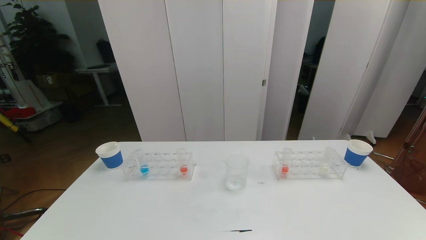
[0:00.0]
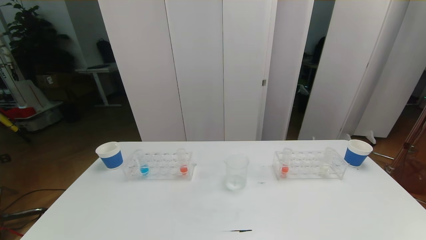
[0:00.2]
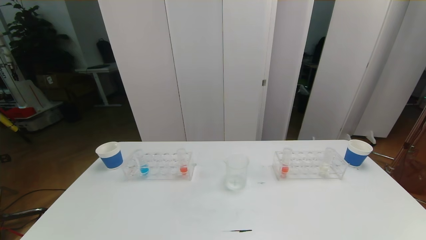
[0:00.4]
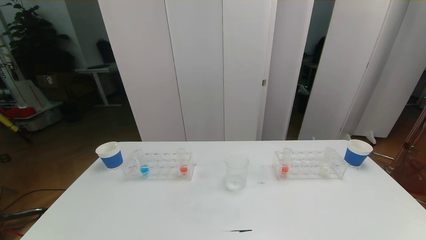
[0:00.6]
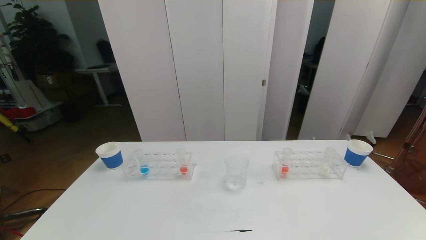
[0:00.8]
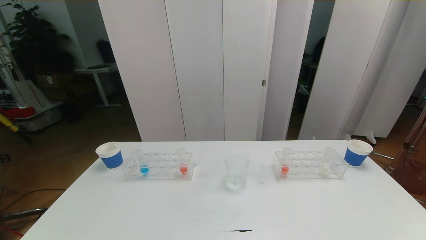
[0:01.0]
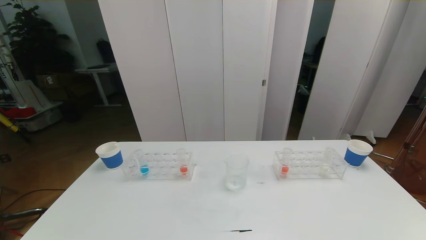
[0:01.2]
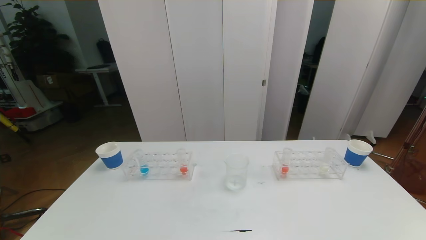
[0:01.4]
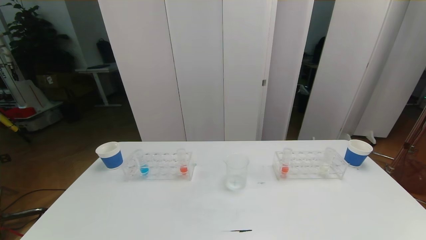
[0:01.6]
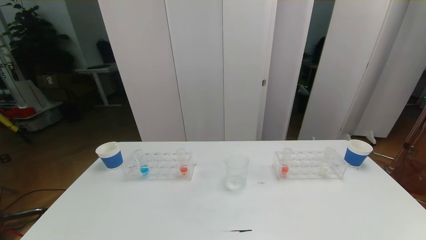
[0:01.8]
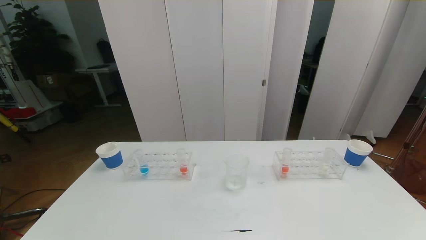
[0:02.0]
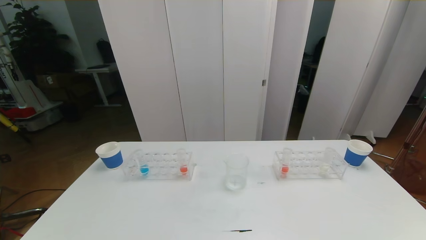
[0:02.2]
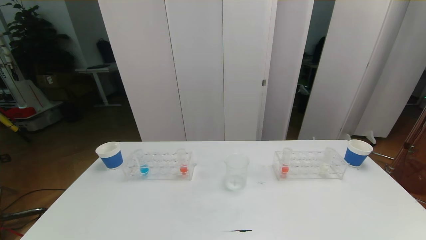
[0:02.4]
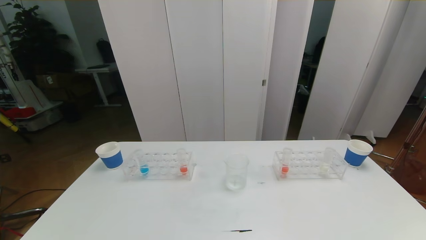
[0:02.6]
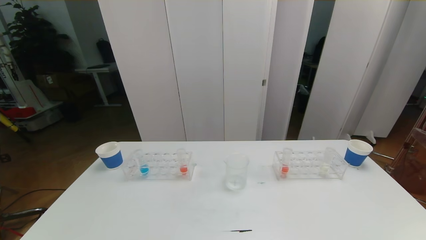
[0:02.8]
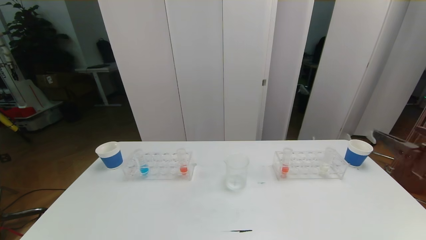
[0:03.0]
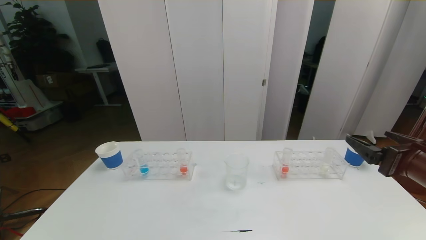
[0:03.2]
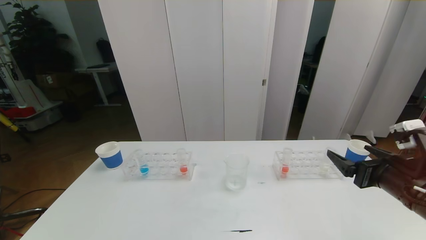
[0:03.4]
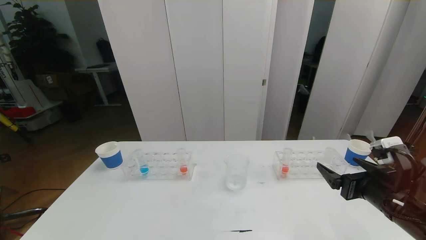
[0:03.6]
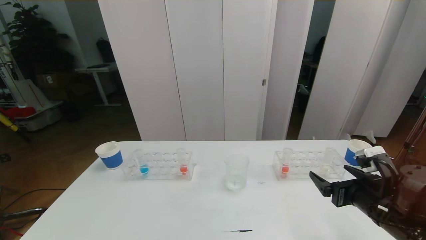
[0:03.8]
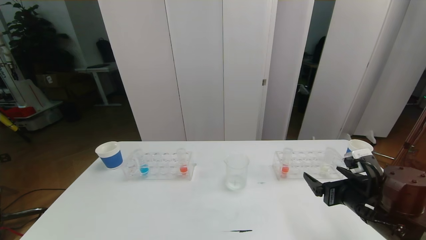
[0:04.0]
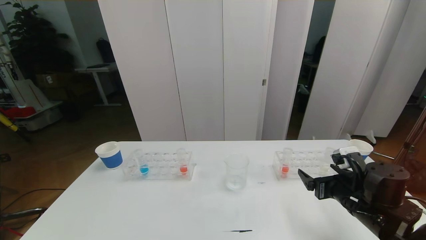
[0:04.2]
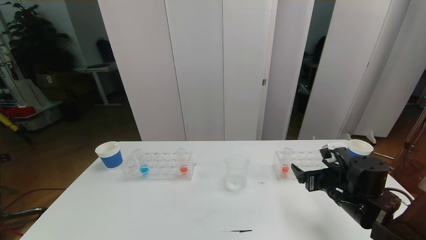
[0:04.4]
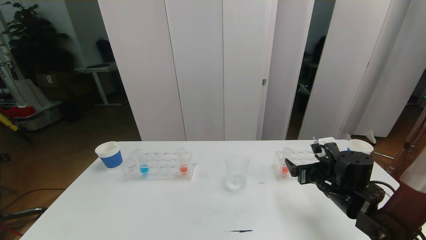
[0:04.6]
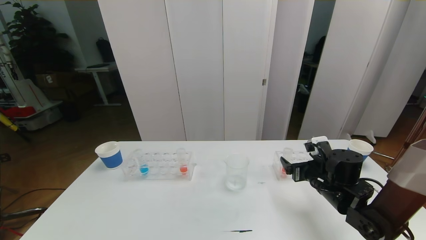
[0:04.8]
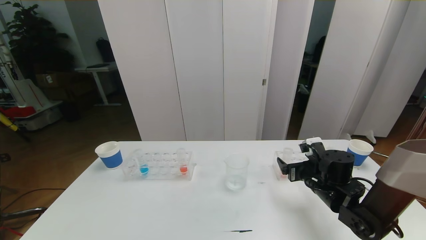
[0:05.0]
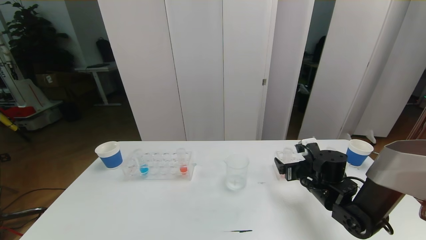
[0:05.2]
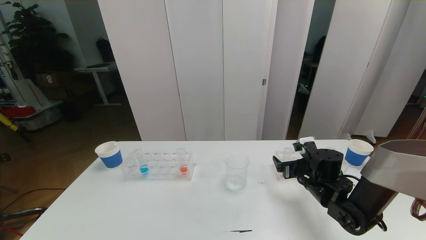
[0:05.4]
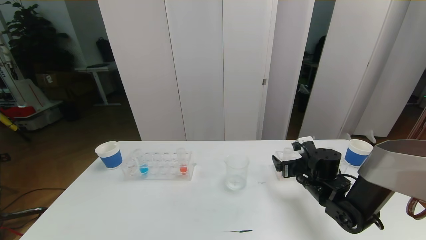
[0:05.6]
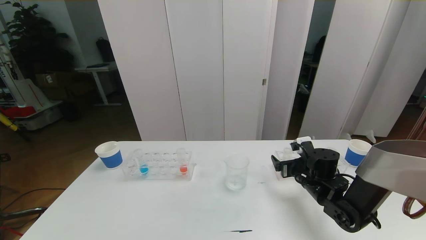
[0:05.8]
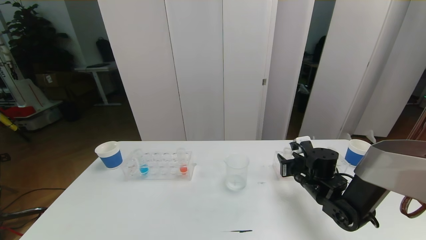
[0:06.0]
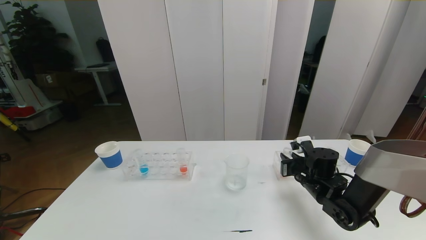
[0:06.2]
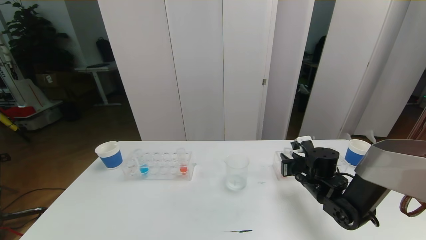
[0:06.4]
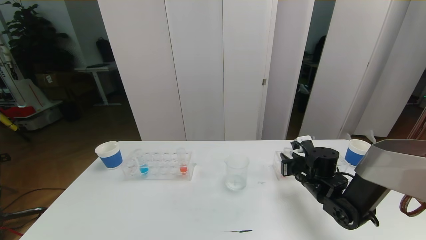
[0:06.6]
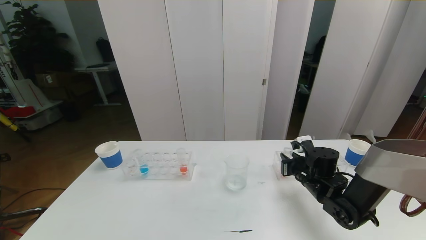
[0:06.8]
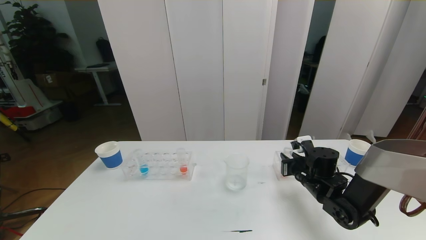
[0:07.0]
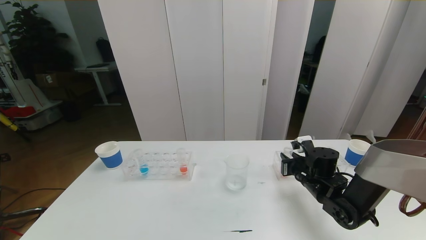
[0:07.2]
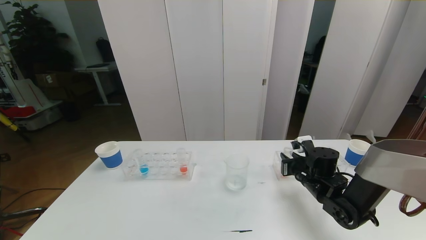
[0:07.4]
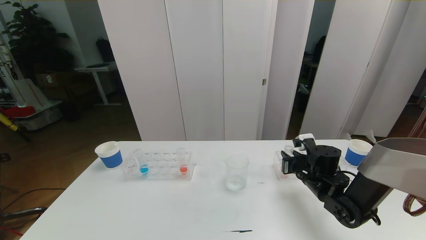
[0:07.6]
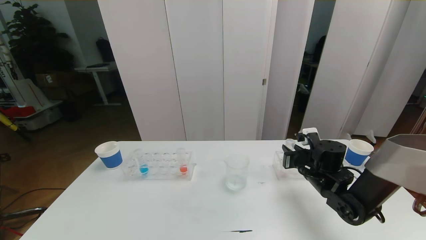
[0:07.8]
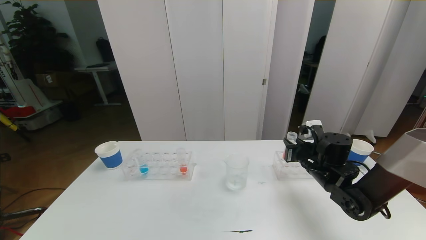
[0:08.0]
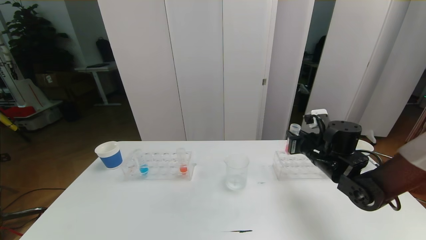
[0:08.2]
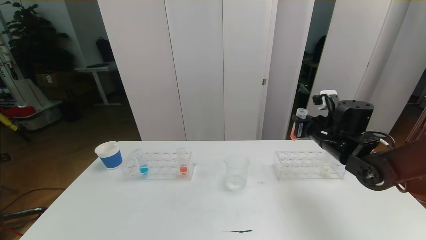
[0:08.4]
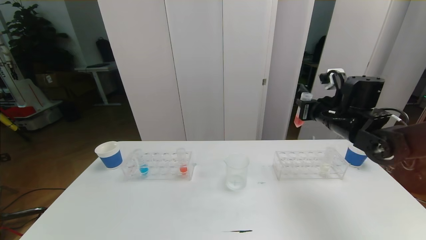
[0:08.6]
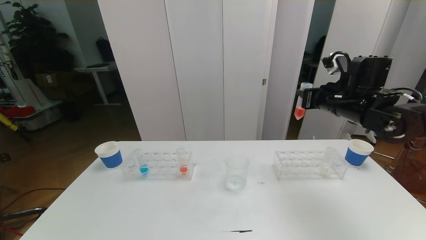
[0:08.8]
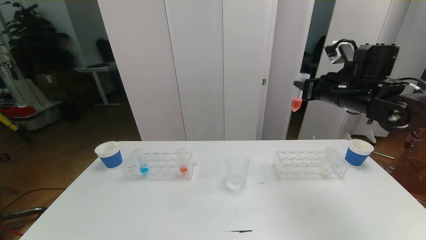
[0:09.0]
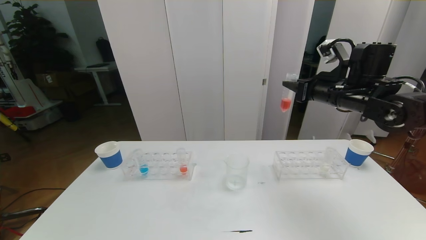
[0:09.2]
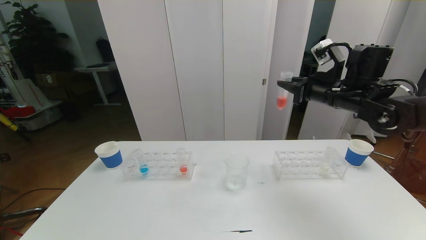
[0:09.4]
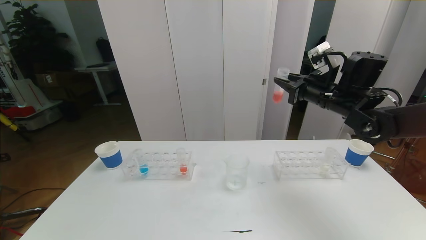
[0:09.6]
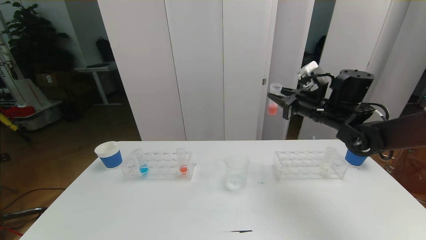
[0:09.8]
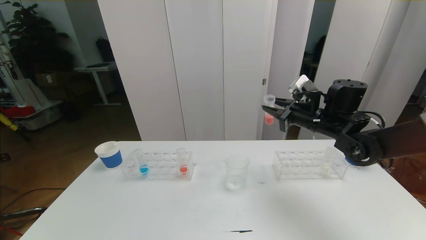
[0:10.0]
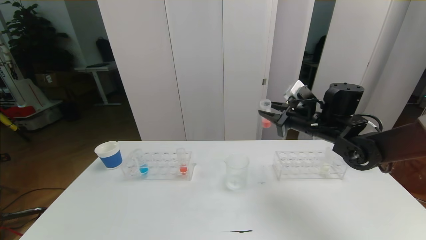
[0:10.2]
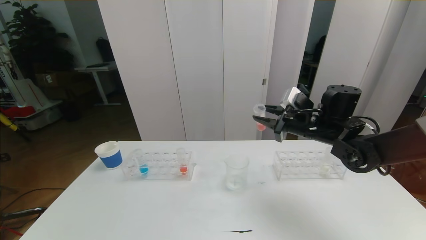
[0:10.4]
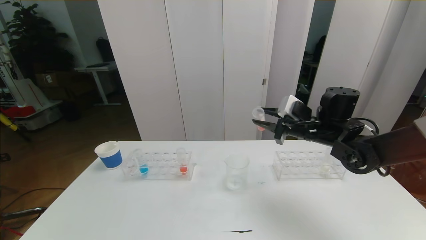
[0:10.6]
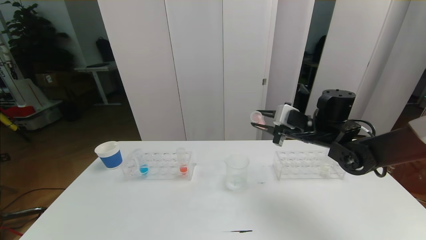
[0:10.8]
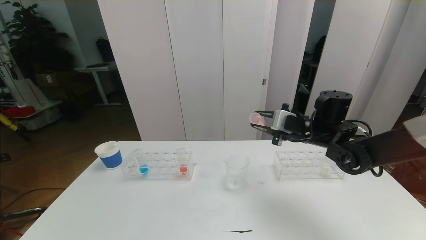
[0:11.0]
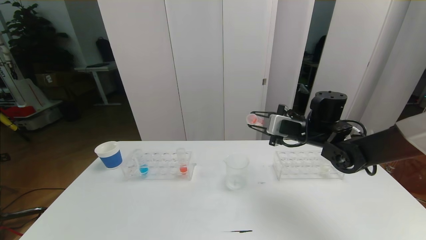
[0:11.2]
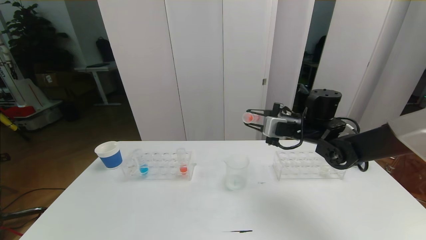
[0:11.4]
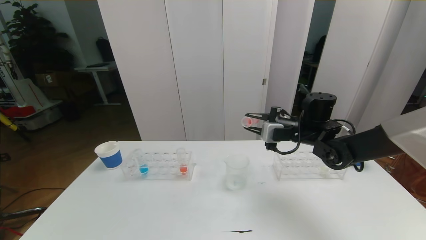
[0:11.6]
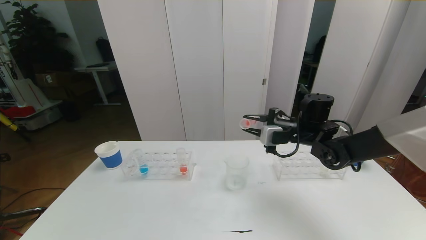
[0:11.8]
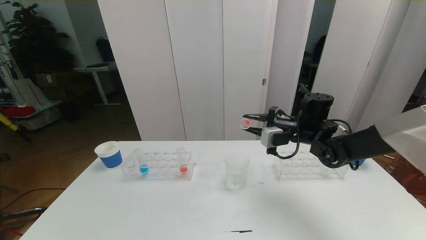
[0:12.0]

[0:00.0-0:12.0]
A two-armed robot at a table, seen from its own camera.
Task of the whole recording: pick up the test tube with red pigment the test tube with blue pigment and the test tube with white pigment by grippers and pour them into the beaker.
0:00.0 to 0:01.6: The two grippers keep their place.
0:03.0 to 0:04.4: The right gripper is displaced downward, forward and to the left by about 20 cm.
0:04.4 to 0:06.0: The right gripper goes roughly 5 cm forward, and closes up.
0:06.0 to 0:07.6: The two grippers keep their place.
0:07.6 to 0:09.0: The right gripper goes roughly 20 cm upward.
0:09.0 to 0:10.4: The right gripper travels downward and to the left by some 10 cm.
0:10.4 to 0:12.0: The right gripper changes place by some 5 cm.

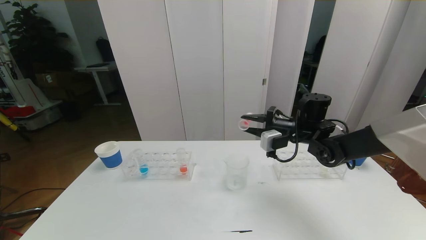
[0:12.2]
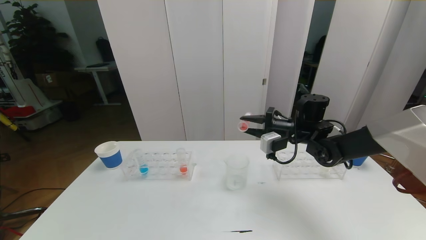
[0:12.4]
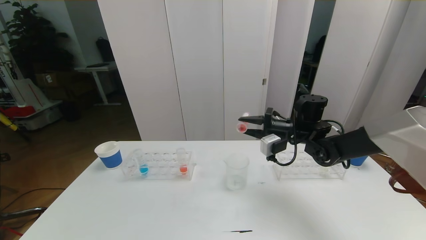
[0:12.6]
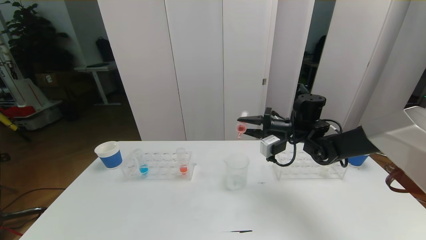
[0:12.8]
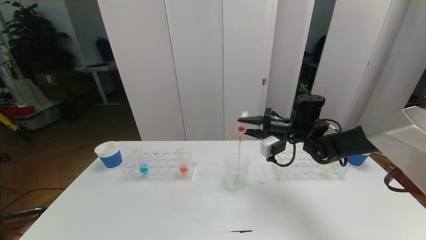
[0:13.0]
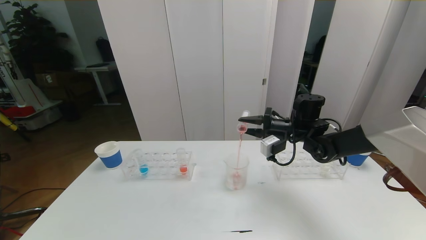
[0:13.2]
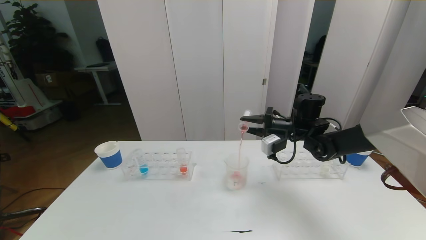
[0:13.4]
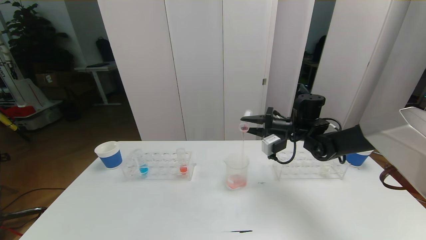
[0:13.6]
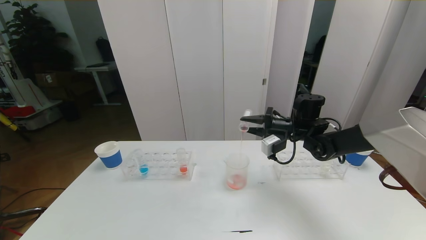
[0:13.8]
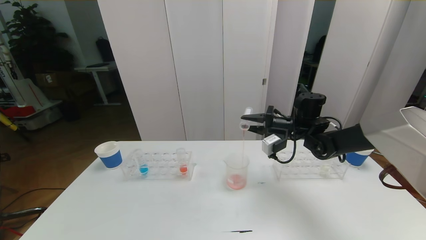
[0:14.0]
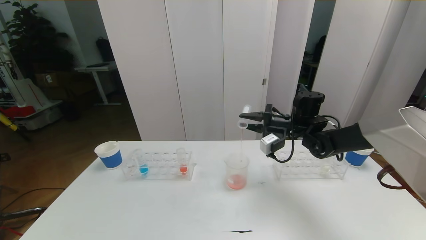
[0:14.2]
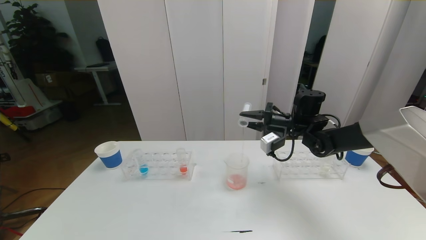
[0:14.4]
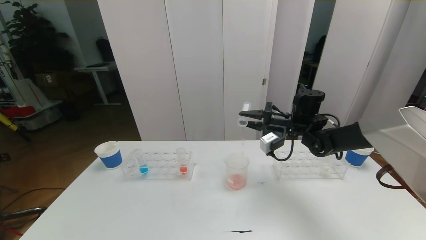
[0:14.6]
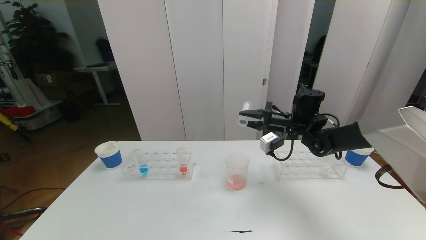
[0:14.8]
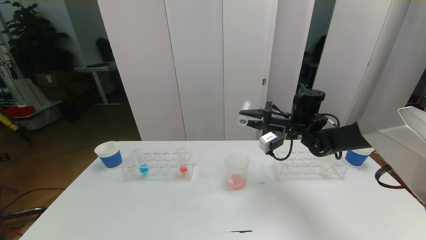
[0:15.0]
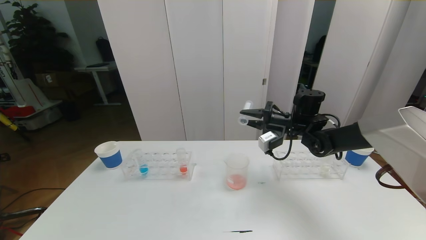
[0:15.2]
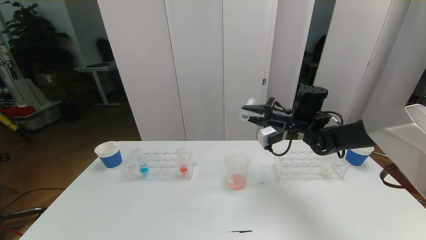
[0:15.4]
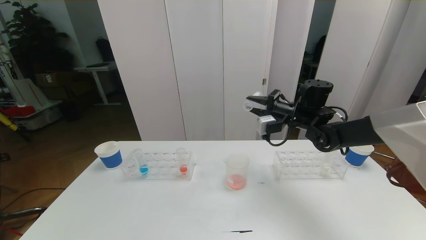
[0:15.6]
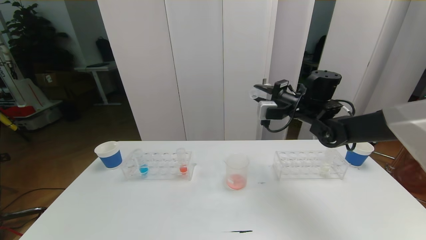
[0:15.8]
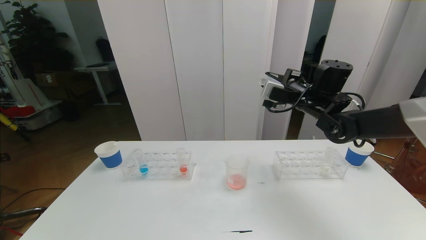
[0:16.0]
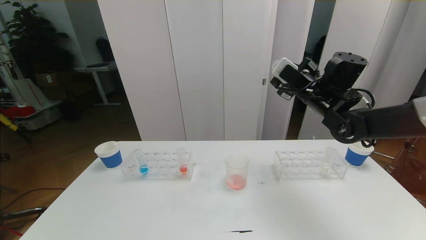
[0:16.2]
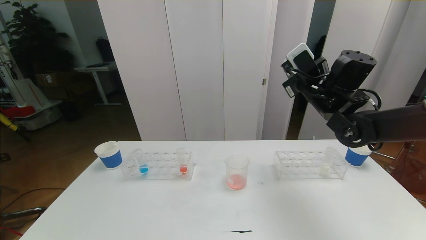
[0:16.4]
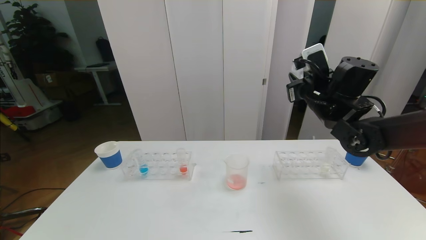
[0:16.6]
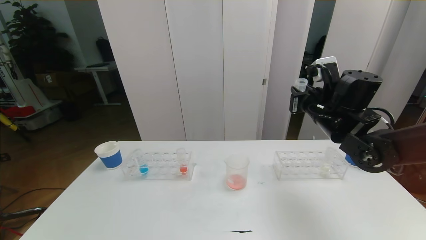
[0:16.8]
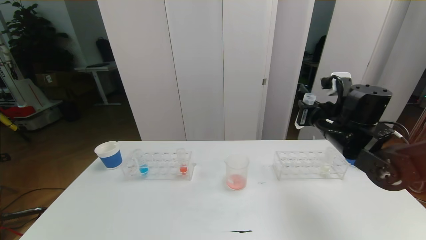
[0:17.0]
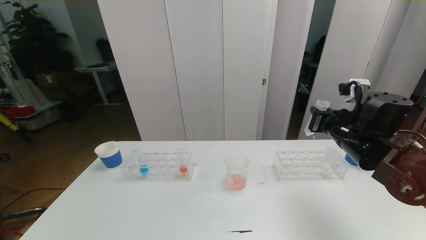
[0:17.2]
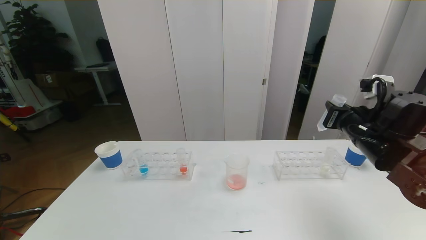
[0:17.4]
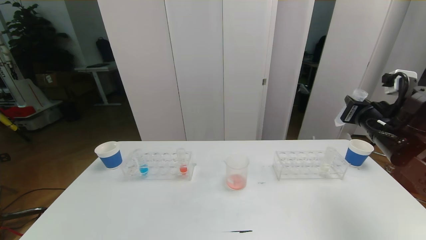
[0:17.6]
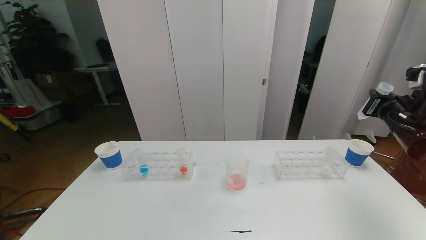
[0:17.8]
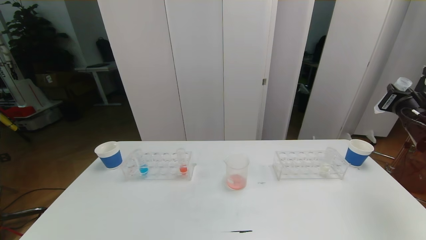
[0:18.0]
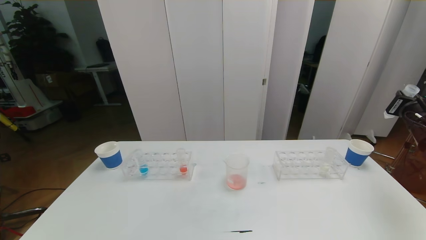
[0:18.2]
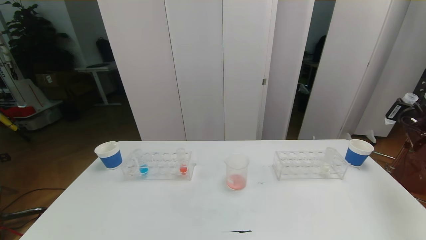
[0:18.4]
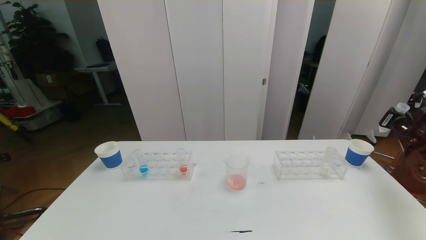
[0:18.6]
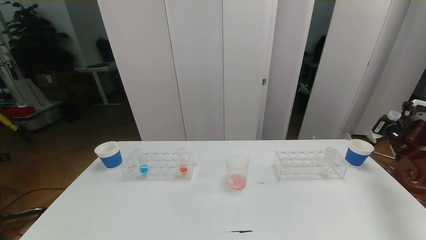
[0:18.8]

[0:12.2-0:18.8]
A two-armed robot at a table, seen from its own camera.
Task of the whole recording: pick up the test tube with red pigment the test tube with blue pigment and the test tube with white pigment by grippers and pour them into the beaker.
0:12.2 to 0:13.8: The grippers stay close to where they were, moving slightly.
0:13.8 to 0:15.4: The grippers make only small movements.
0:15.4 to 0:17.2: The right gripper is displaced backward and to the right by roughly 15 cm.
0:17.2 to 0:18.8: The right gripper is displaced to the right by roughly 20 cm.
